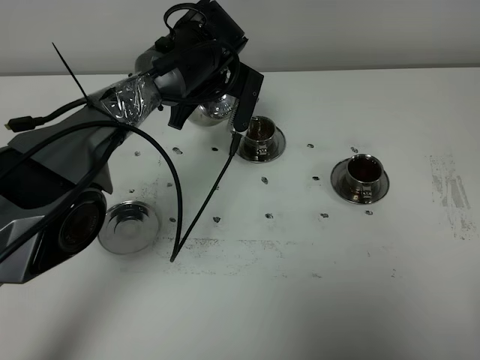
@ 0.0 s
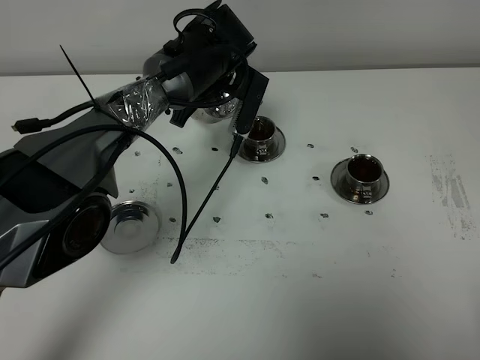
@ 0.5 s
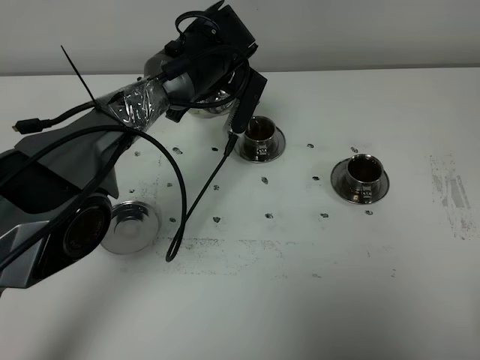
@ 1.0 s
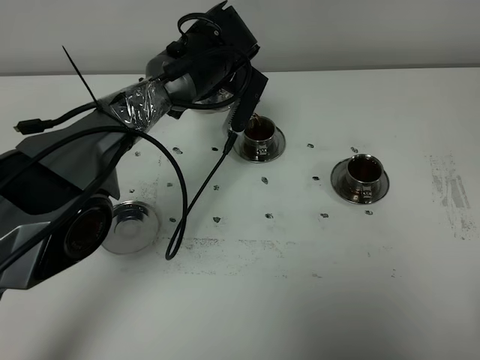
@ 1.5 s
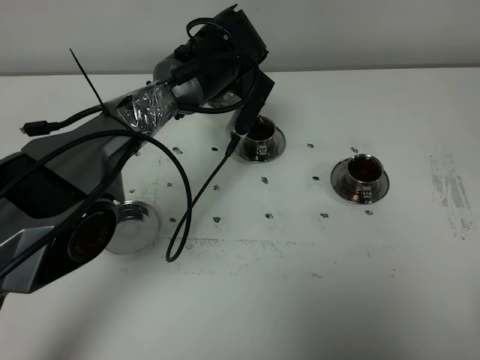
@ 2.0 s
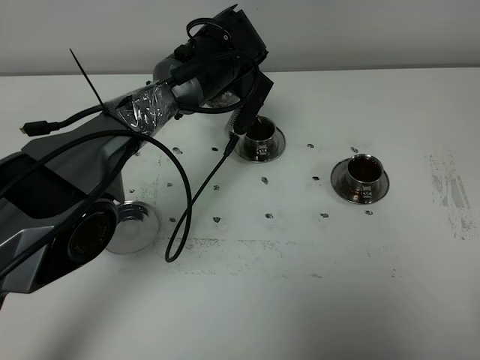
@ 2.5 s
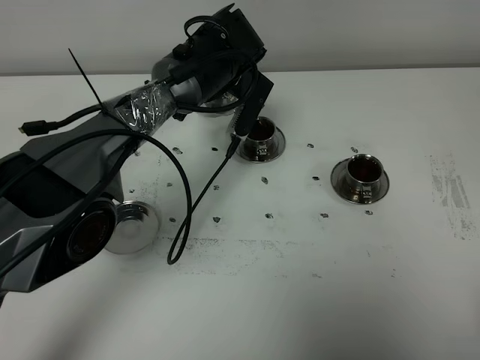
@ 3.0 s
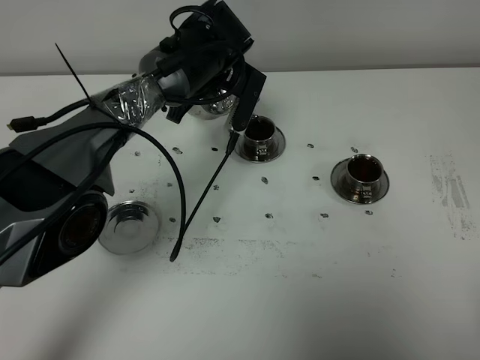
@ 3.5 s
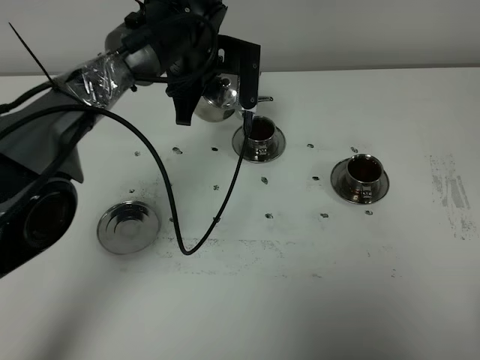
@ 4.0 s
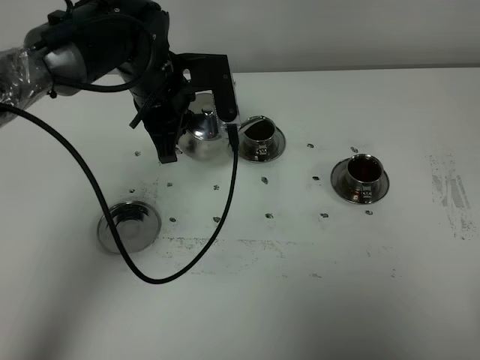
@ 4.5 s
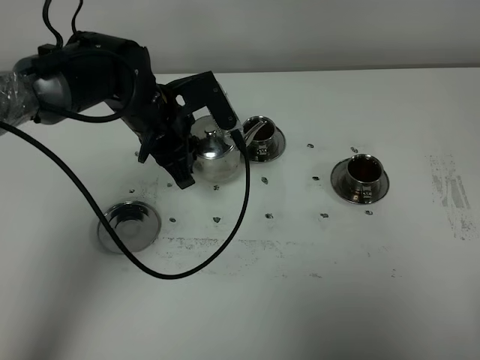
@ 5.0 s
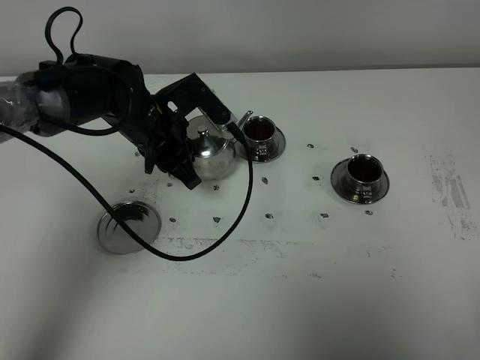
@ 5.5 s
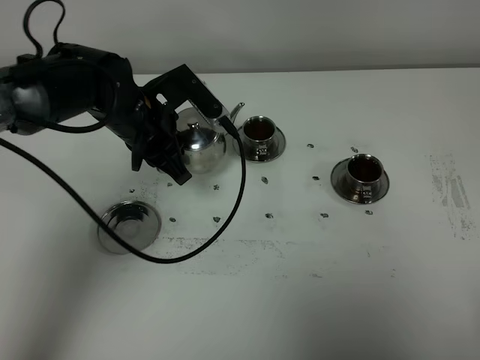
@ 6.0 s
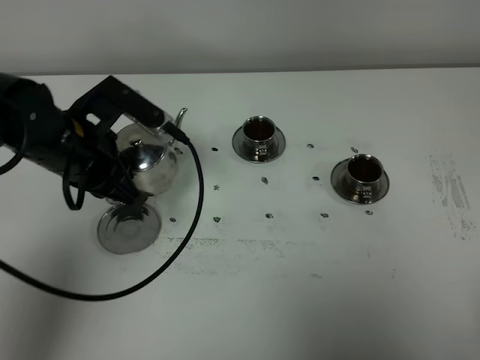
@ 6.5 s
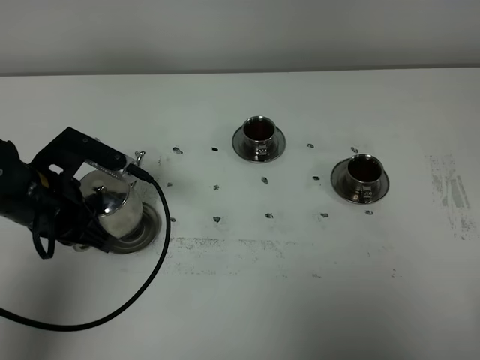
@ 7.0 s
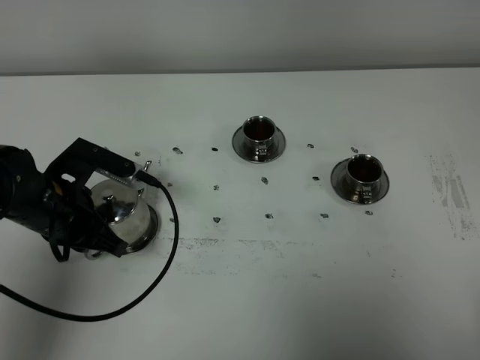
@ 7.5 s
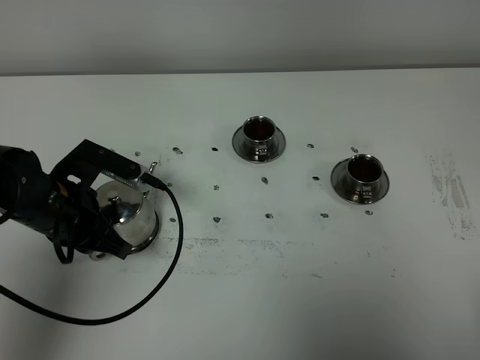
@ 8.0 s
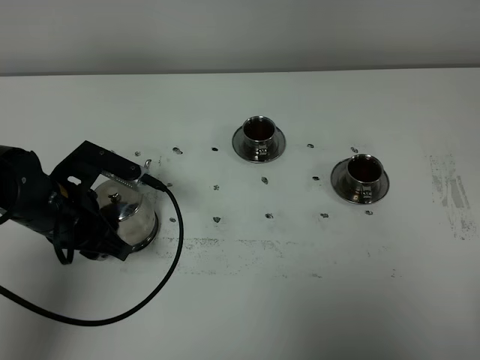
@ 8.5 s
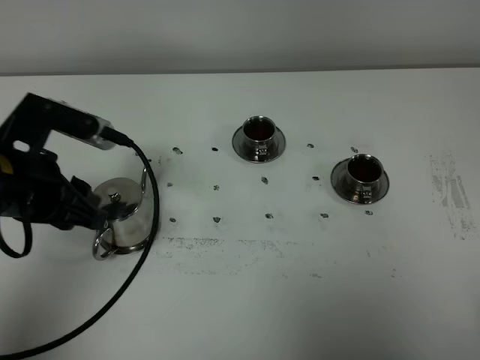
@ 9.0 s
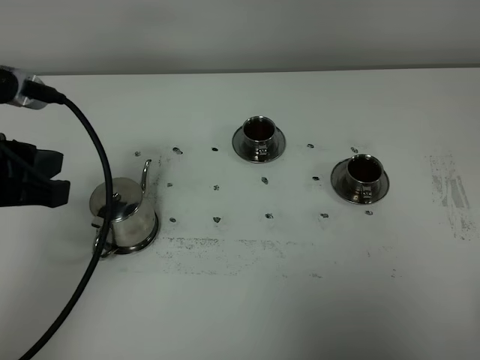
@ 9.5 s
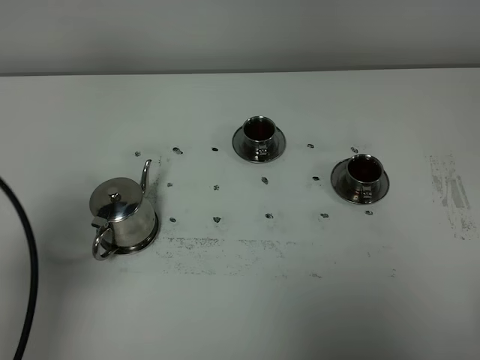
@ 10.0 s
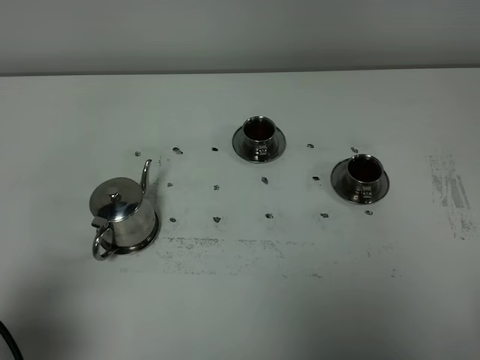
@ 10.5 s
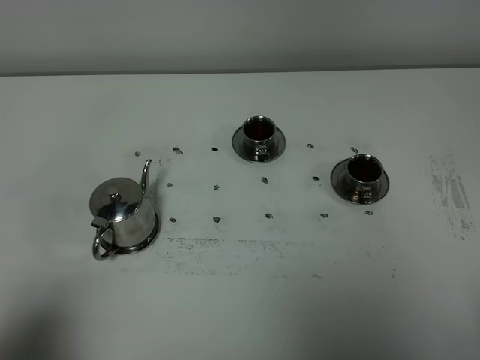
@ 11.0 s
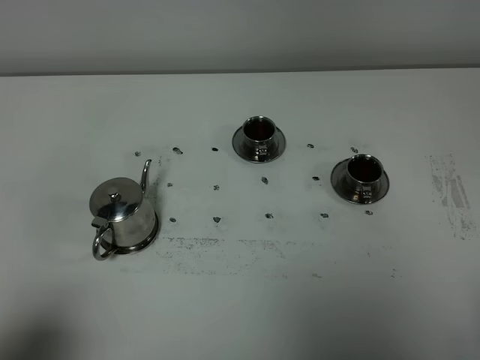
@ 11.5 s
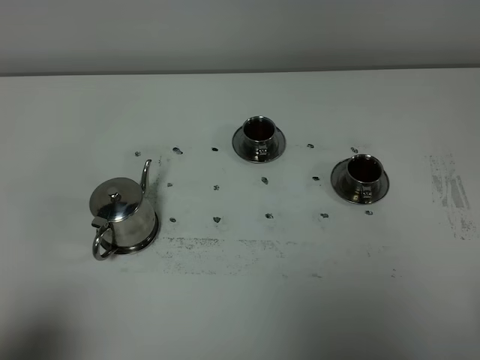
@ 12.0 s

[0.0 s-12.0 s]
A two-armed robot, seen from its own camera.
Task of the whole recording: grasp the stainless steel teapot and pour the tea into the two stainless steel teacups one by one, put the stainless steel teapot back in its original place.
Step, 0.0 to 3.5 s: Pour tea into the teacup with the left gripper.
0.0 to 2.0 s: The grippers move only a little.
4.0 to 6.0 s: The left gripper goes roughly 10 cm backward and to the left.
6.0 to 8.0 s: The left gripper is displaced backward and to the left by approximately 15 cm.
8.0 to 10.0 s: The left gripper moves backward, upward and to the left, approximately 25 cm, and opens and closes again.
10.0 to 12.0 s: The left gripper travels backward and downward by approximately 15 cm.
